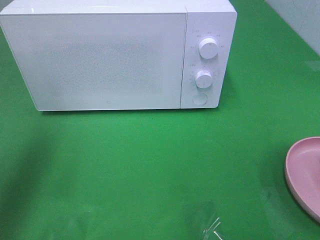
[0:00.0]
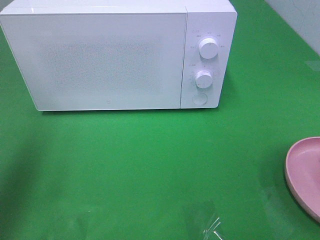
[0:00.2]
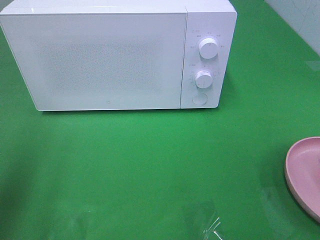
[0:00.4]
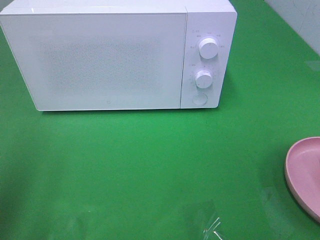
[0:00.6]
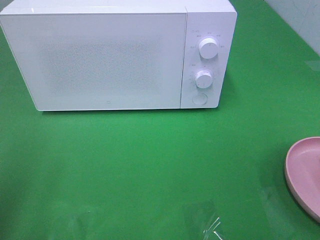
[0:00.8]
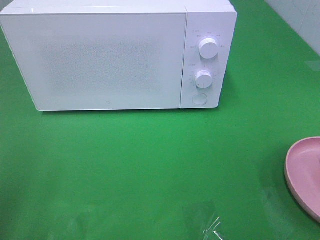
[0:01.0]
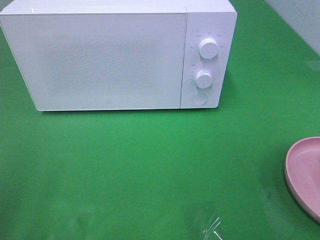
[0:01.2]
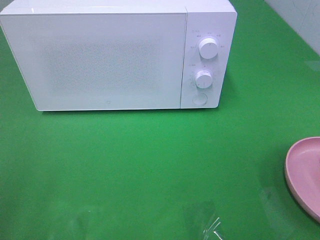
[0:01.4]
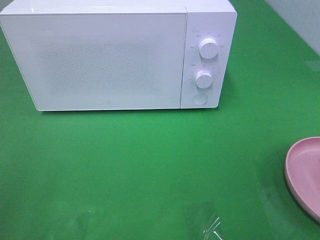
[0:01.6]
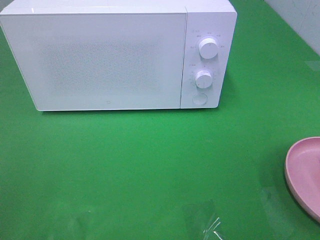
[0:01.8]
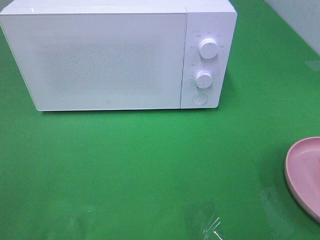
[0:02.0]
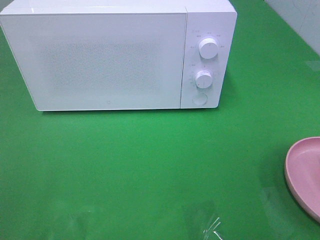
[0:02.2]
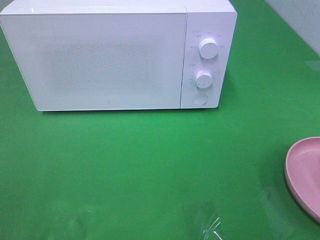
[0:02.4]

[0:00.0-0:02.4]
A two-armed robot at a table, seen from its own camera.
Task of the whole recording: Heat the burger.
0:00.0 to 0:01.2: The left gripper is displaced backward by about 15 cm.

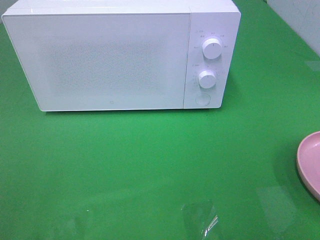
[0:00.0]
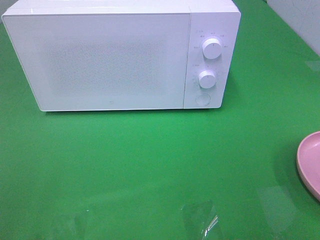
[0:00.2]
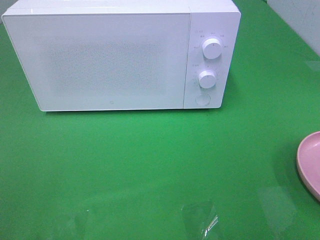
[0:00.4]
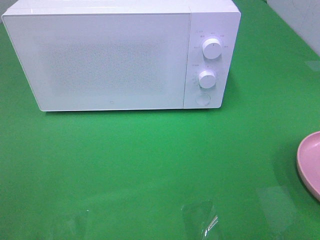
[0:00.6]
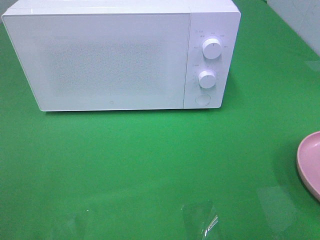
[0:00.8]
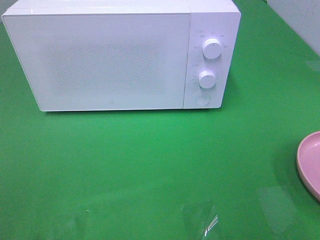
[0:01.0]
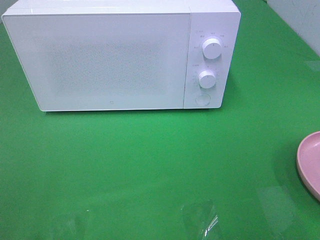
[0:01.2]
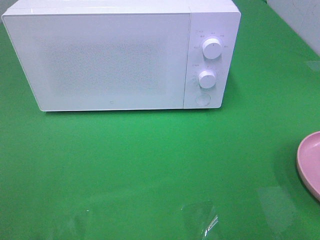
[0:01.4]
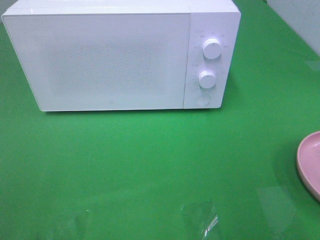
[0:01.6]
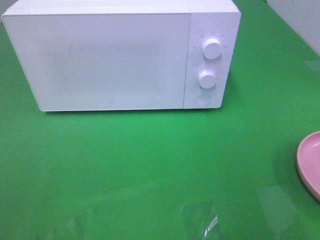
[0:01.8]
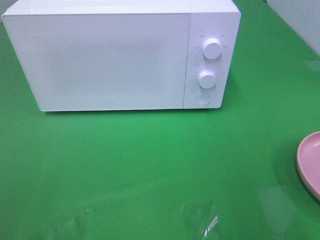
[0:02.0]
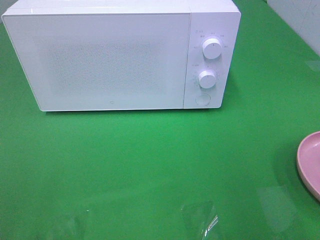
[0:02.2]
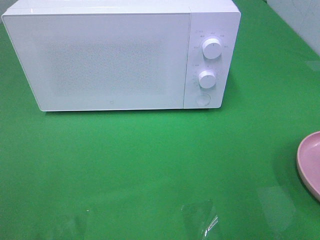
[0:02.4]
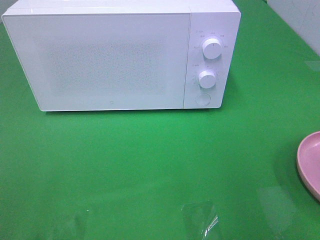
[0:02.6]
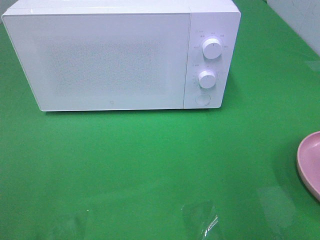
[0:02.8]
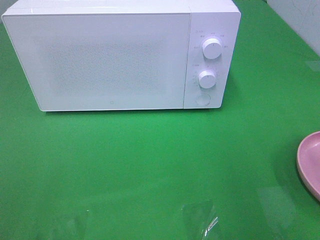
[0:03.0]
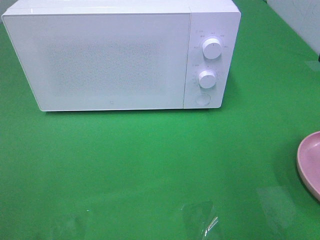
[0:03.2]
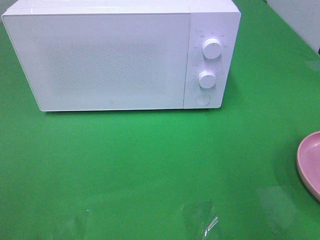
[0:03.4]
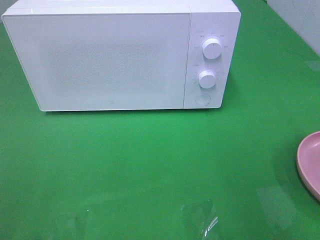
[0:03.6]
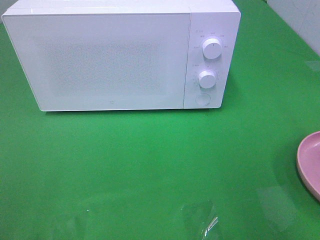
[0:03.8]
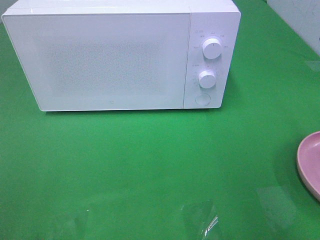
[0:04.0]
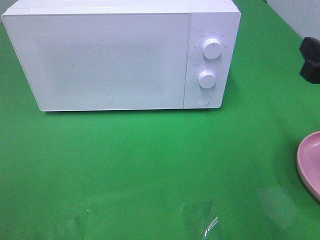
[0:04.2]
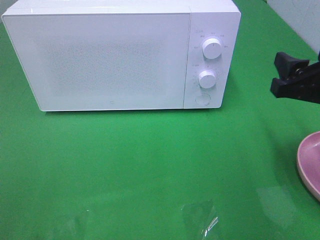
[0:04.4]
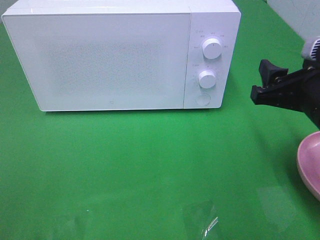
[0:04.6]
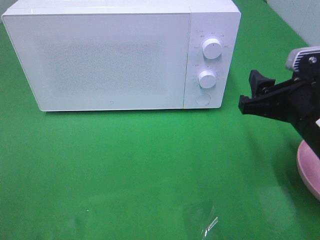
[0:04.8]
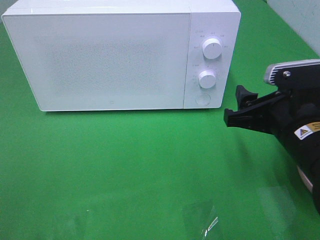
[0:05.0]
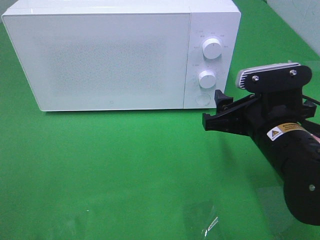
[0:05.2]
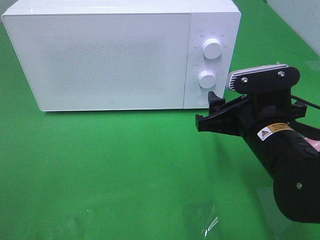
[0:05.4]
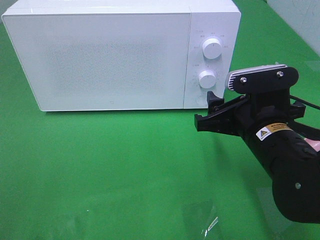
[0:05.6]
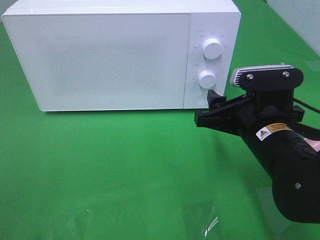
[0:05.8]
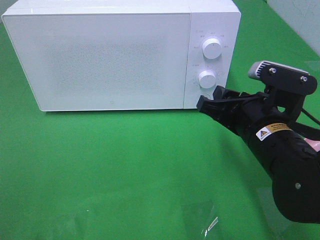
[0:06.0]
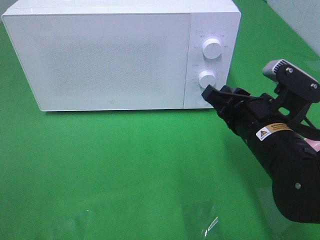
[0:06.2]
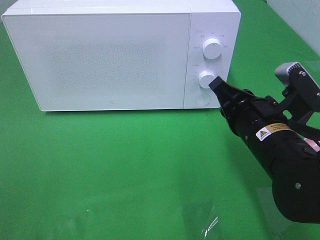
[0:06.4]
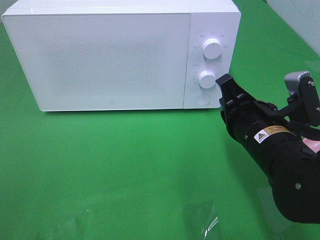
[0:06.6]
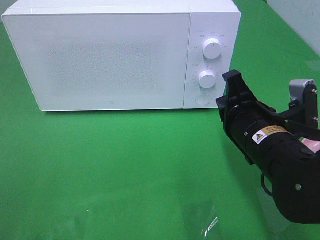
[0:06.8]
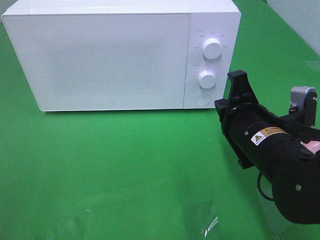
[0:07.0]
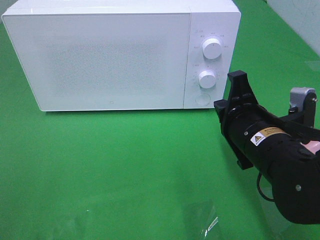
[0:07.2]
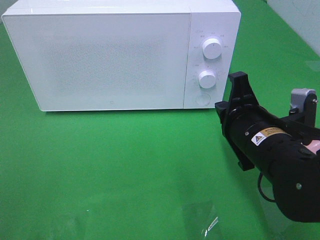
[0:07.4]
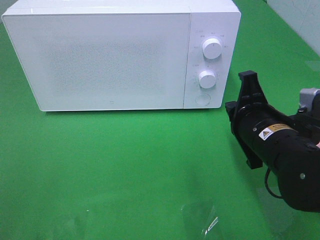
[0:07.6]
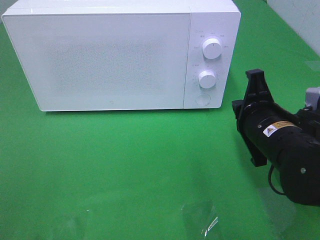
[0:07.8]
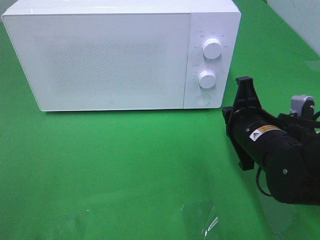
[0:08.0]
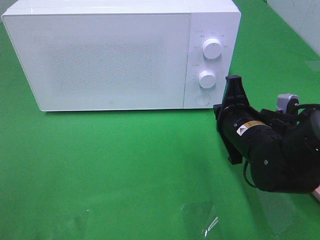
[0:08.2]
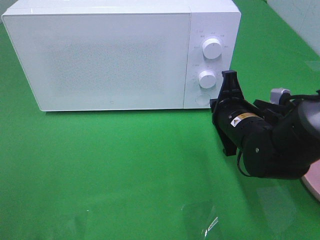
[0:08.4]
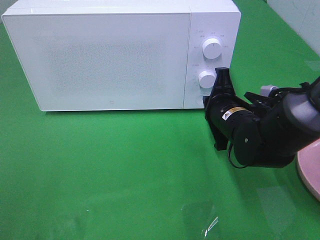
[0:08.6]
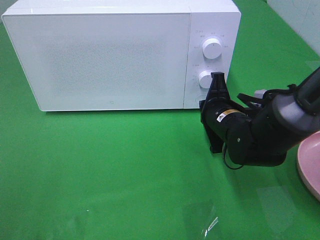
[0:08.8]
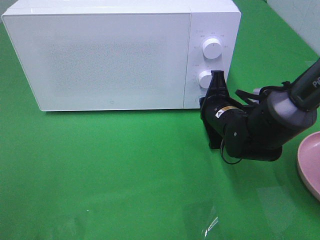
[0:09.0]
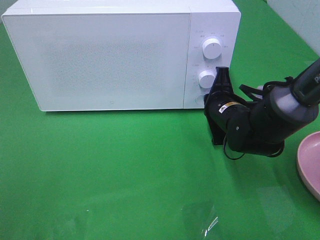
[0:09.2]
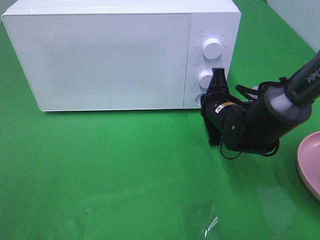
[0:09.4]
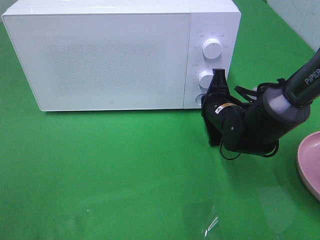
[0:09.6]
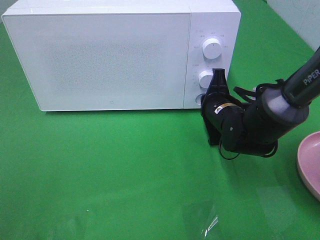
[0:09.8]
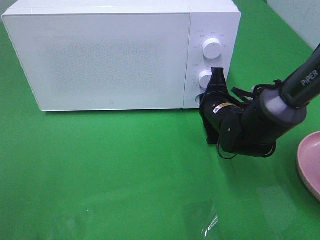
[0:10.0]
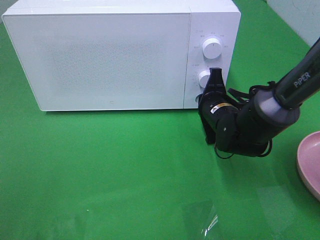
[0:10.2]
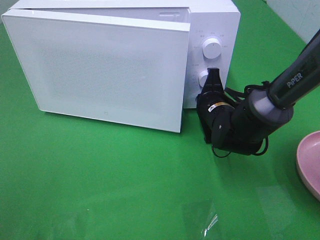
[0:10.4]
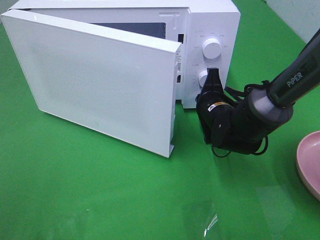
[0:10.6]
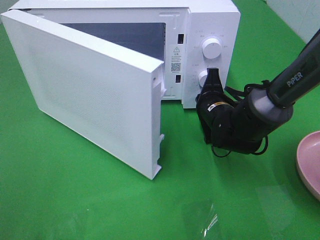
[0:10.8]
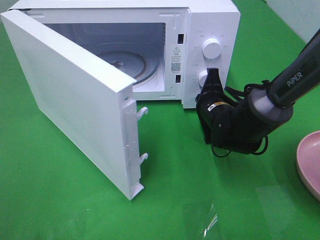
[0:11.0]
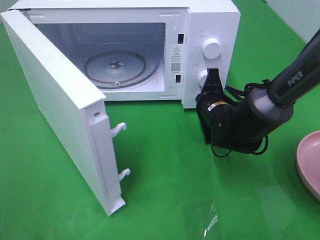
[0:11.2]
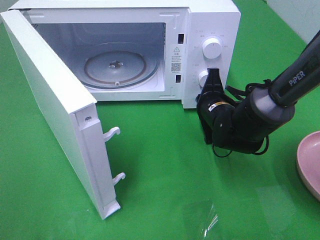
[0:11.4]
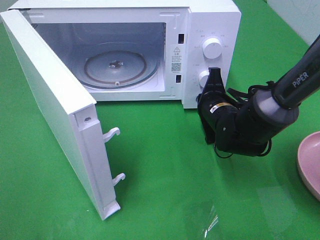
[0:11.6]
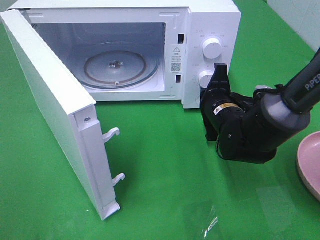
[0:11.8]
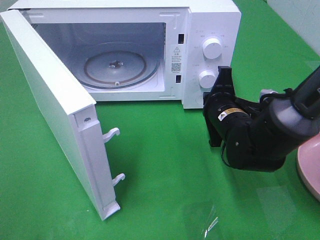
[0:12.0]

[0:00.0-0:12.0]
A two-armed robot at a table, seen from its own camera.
Task of the whole recording: Heat the burger.
Step, 0:00.0 to 0:10.2: Right hand: press the switch.
0:03.0 to 0:04.4: The right gripper shifts some 5 cm downward.
0:04.4 to 0:06.0: The right gripper heads to the left and downward, covering approximately 10 cm.
0:06.0 to 0:07.6: The right gripper closes up.
0:07.6 to 0:09.0: The right gripper goes approximately 10 cm forward and downward.
0:09.0 to 0:10.4: There are only small adjustments of the grippers.
0:10.4 to 0:12.0: The right gripper ends up approximately 5 cm from where it was.

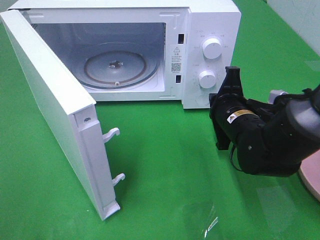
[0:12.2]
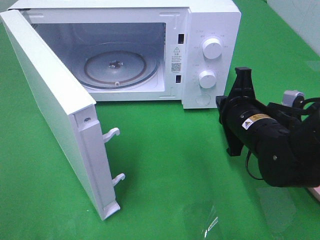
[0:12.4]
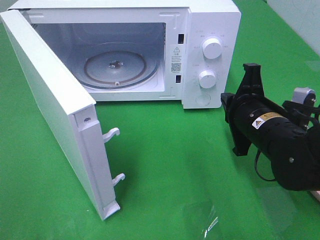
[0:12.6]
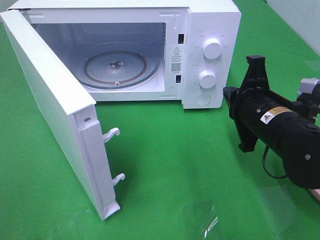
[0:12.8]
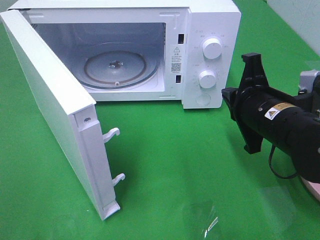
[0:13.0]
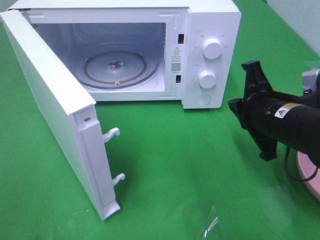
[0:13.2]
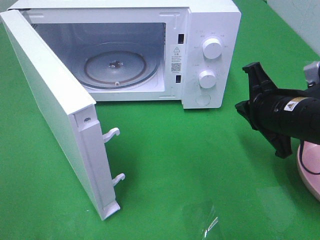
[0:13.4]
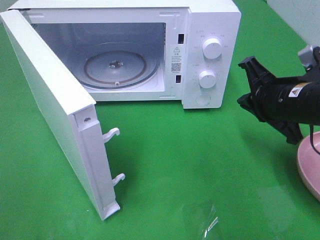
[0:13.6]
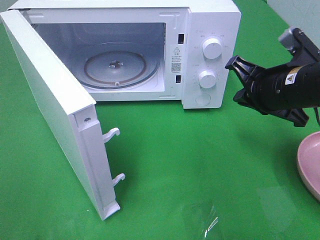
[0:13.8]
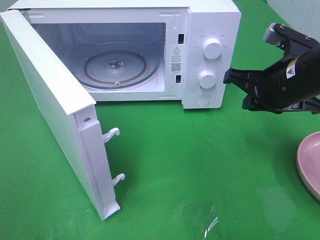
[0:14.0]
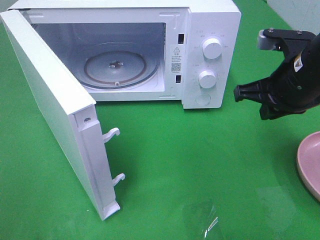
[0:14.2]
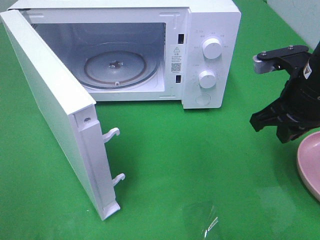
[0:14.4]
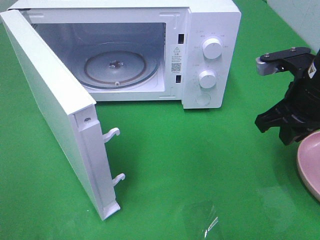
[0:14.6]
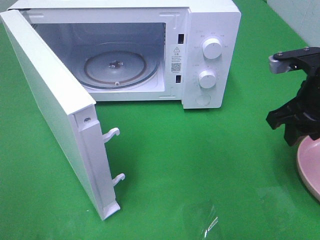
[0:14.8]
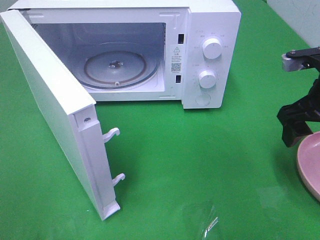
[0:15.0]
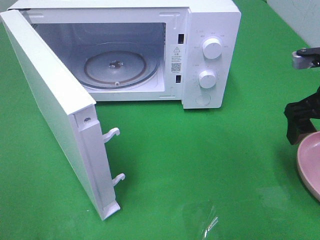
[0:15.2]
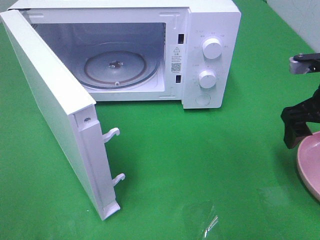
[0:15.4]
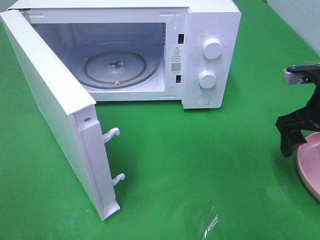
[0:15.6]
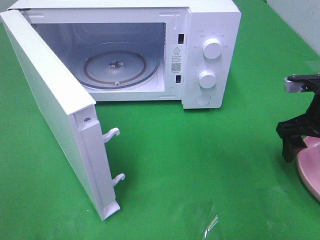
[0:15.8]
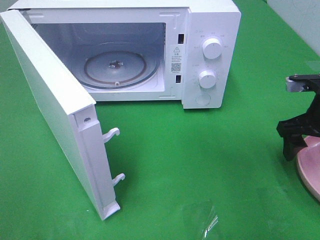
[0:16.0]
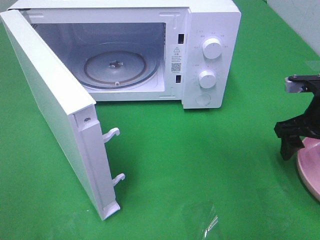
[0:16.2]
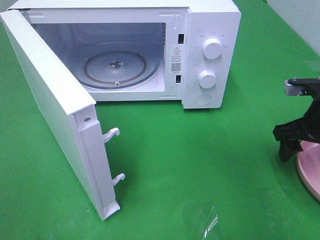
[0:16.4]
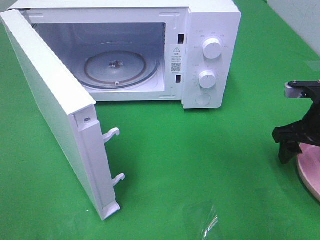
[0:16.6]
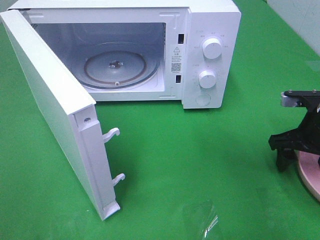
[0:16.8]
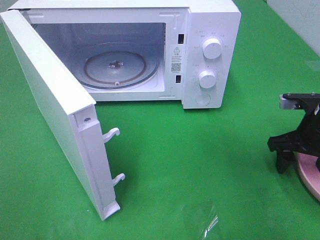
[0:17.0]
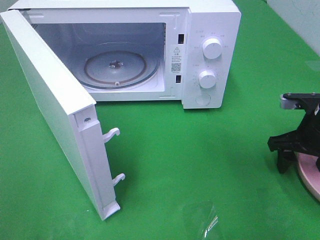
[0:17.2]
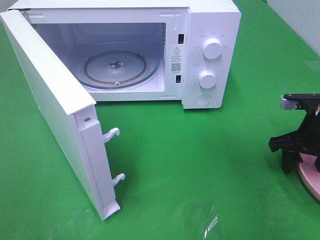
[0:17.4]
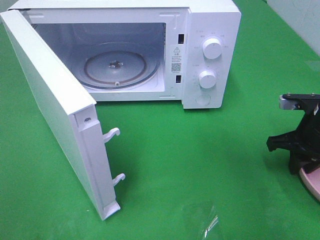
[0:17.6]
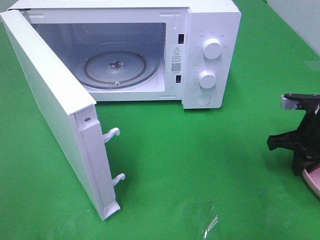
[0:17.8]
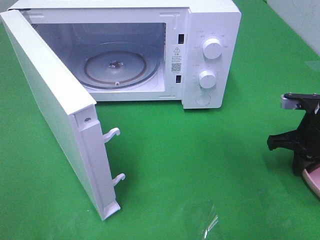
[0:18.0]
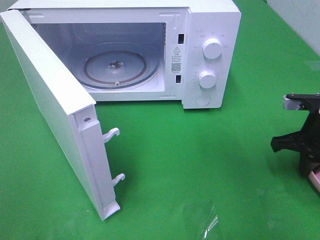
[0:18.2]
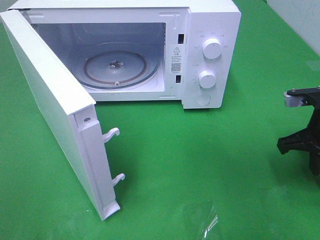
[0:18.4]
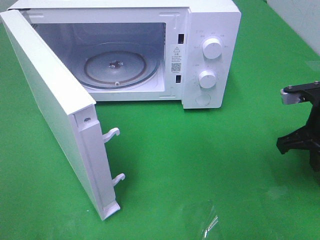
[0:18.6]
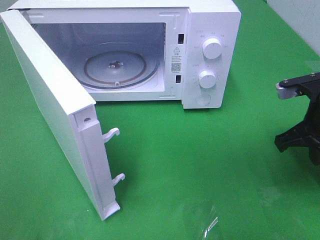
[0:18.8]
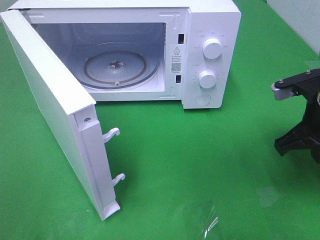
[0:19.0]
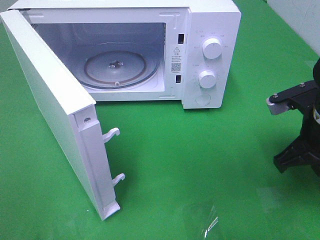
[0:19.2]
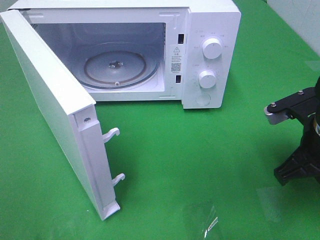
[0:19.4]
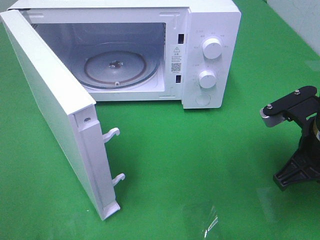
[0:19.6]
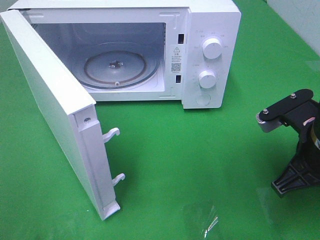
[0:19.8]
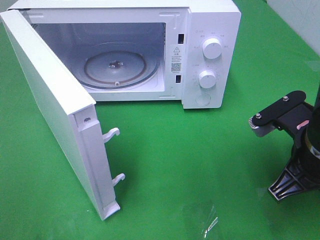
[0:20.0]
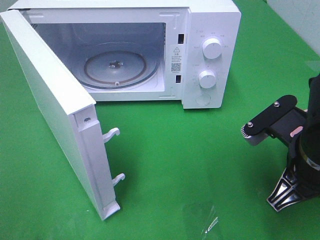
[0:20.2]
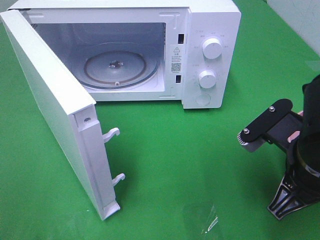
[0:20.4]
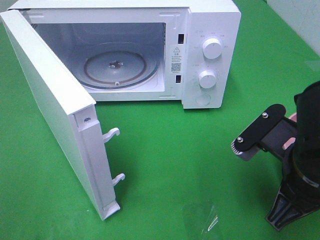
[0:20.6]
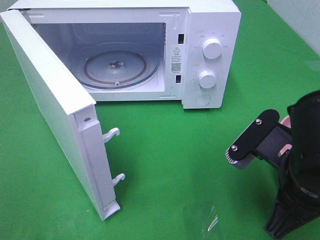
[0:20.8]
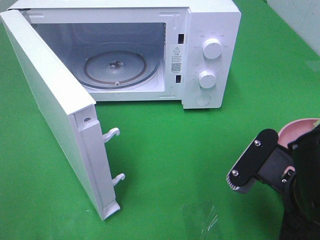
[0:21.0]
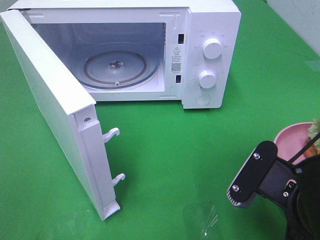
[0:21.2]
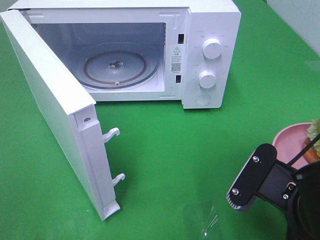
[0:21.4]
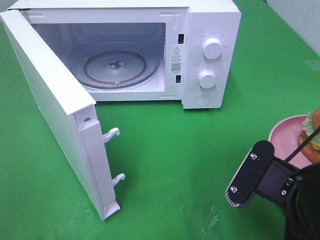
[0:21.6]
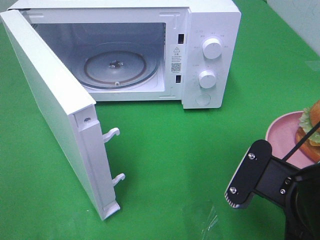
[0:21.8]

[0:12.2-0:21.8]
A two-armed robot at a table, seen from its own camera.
Task of the whole recording: Heat the burger.
Step, 0:12.2 to 0:18.2: Right hand: grab the plate with the hamburger.
0:12.2 to 0:13.8: The right gripper heads upward and to the right, covering approximately 10 cm.
0:13.8 to 0:15.4: The right gripper shifts roughly 10 cm to the right, and opens its fingers.
0:15.4 to 0:17.0: The right gripper goes roughly 10 cm downward.
0:17.0 to 0:18.6: The right gripper heads upward, covering about 5 cm, and closes its fingers.
0:18.6 to 0:20.2: The right gripper shifts approximately 15 cm backward and to the left.
0:20.2 to 0:21.8: The right gripper heads backward, covering approximately 5 cm.
